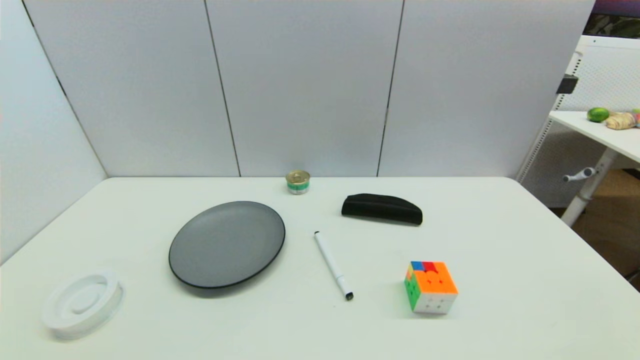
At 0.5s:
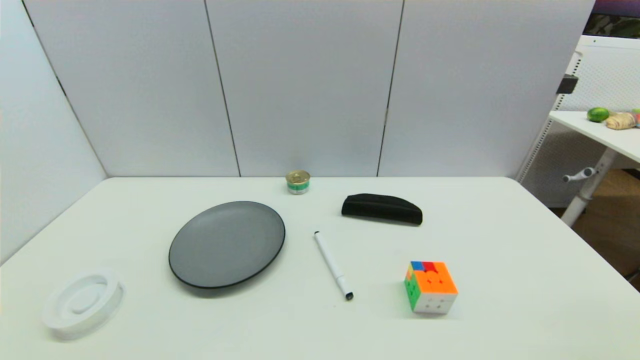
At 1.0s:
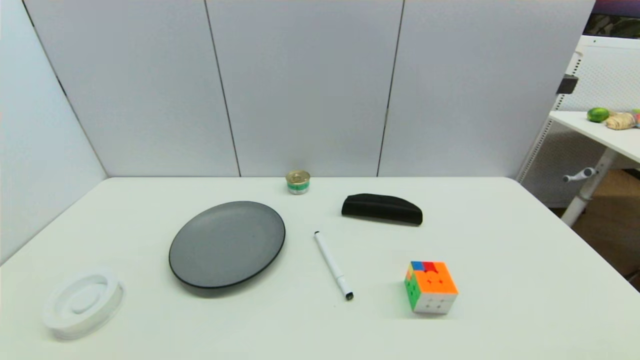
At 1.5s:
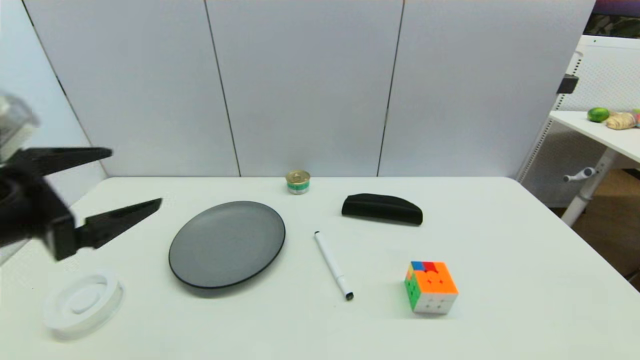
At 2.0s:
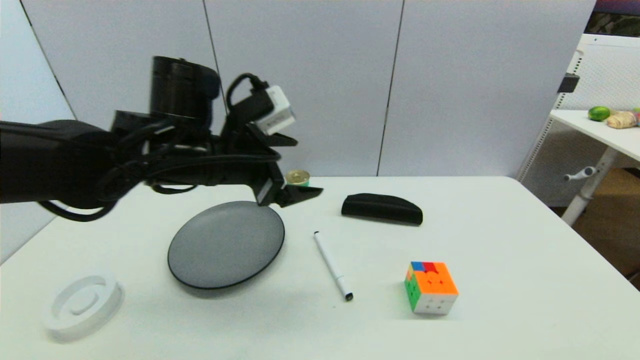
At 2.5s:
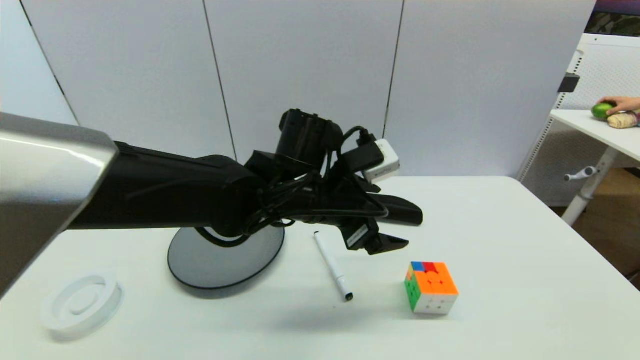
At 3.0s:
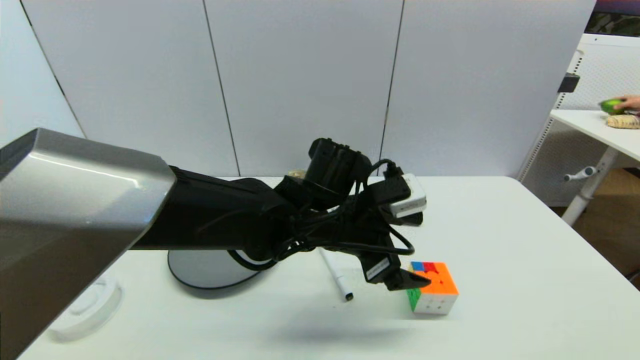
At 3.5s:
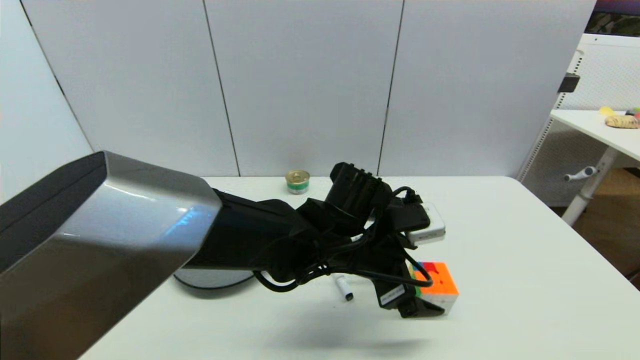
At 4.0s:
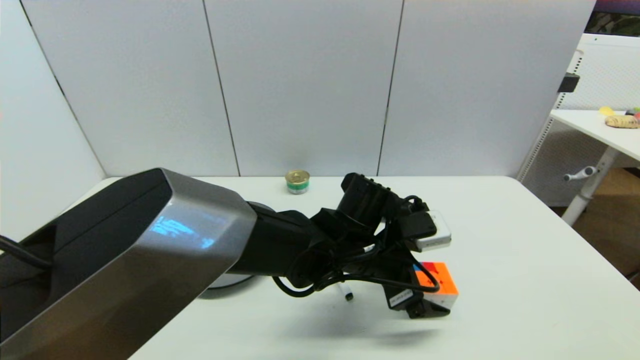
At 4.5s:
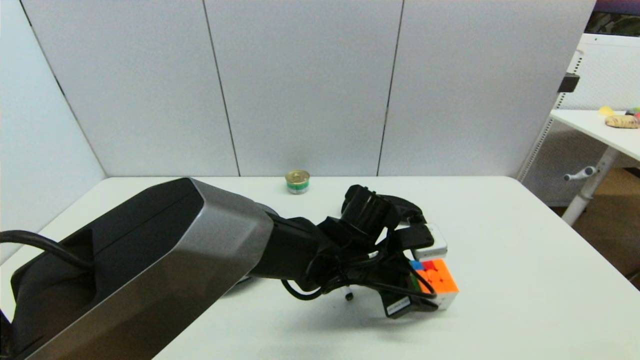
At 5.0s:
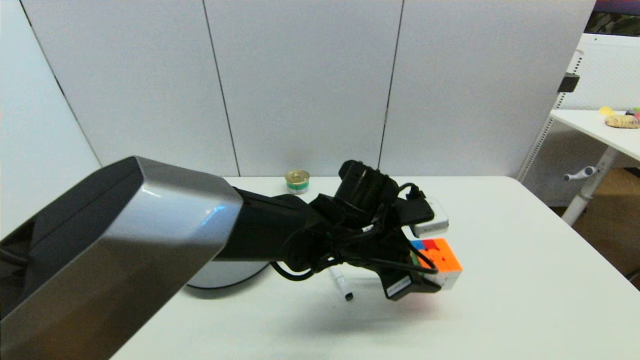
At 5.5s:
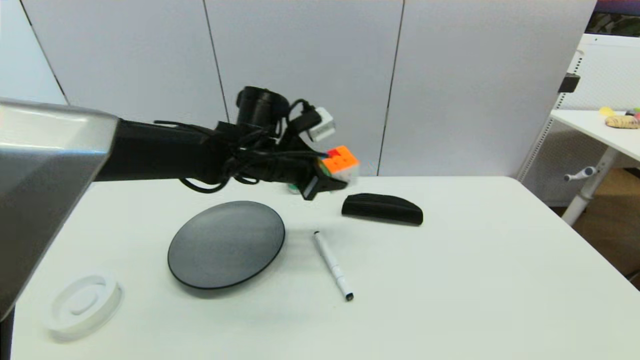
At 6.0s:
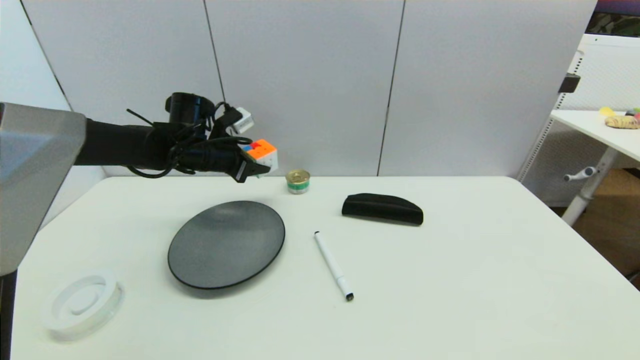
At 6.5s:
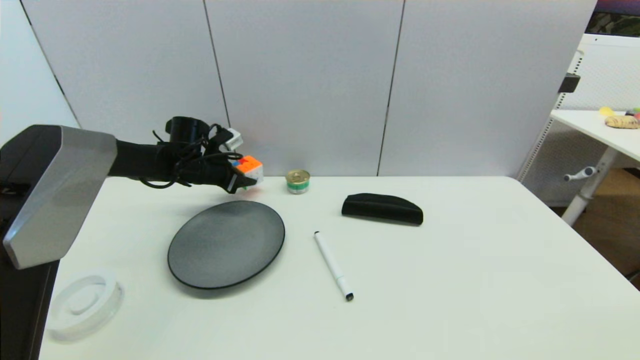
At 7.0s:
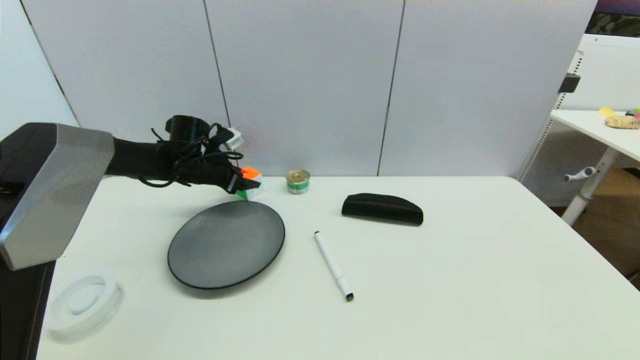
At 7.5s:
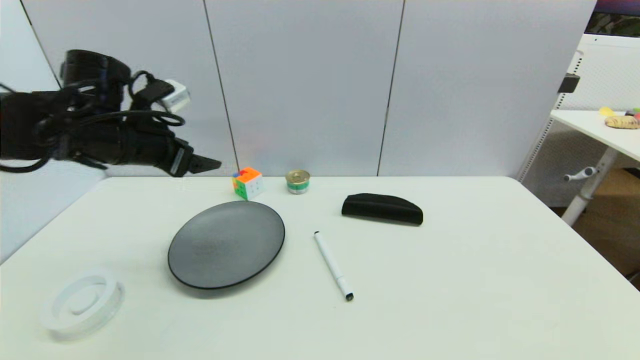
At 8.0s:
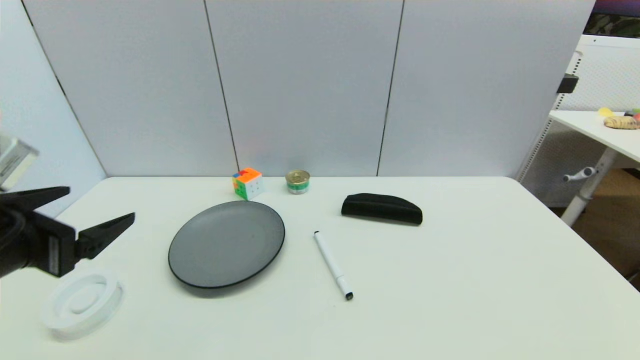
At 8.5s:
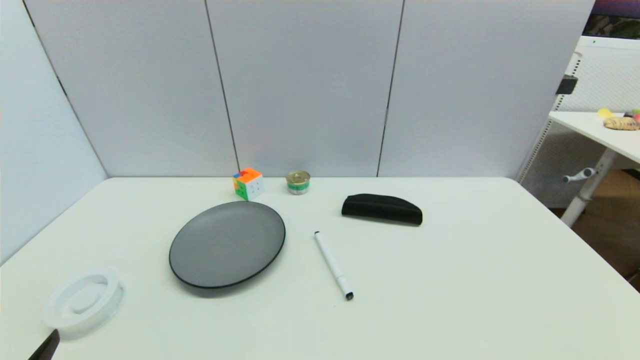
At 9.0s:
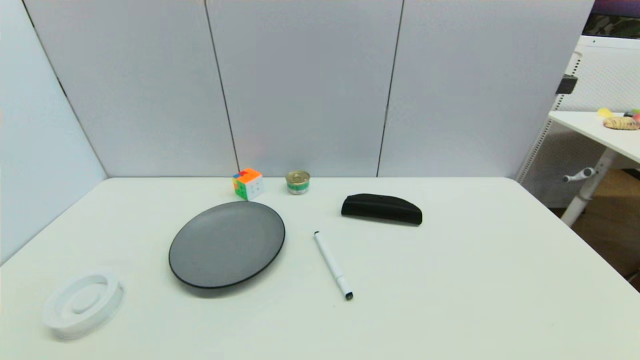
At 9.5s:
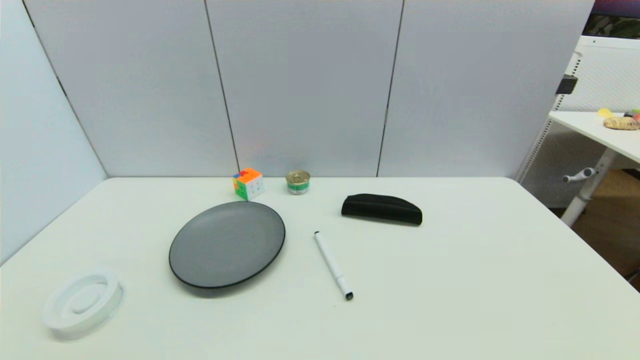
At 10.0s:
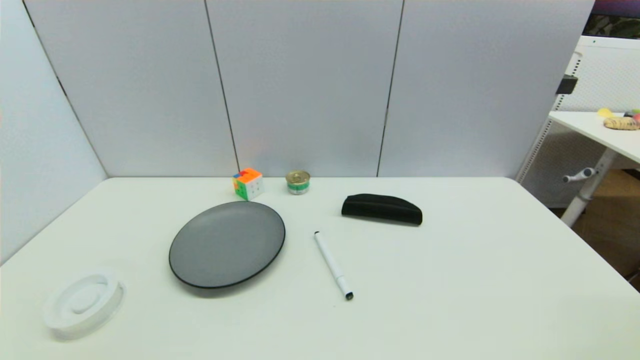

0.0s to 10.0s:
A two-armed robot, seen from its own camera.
Step, 1.5s to 4.5s: Grasp the magic cube with left gripper.
Step, 5.0s to 7.0s: Place the magic cube on the table with left gripper.
0.0s to 2.0s: The left gripper is displaced forward, upward and to the right by approximately 40 cm.
2.0s to 4.0s: The left gripper is displaced to the right and downward by roughly 25 cm.
4.0s to 6.0s: The left gripper shifts some 30 cm to the left and forward, and closes its fingers.
6.0s to 8.0s: The left gripper goes some 30 cm backward, and opens.
8.0s to 10.0s: The left gripper is displaced backward and downward by about 20 cm.

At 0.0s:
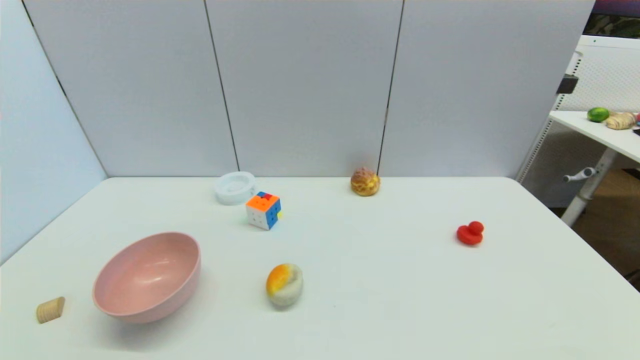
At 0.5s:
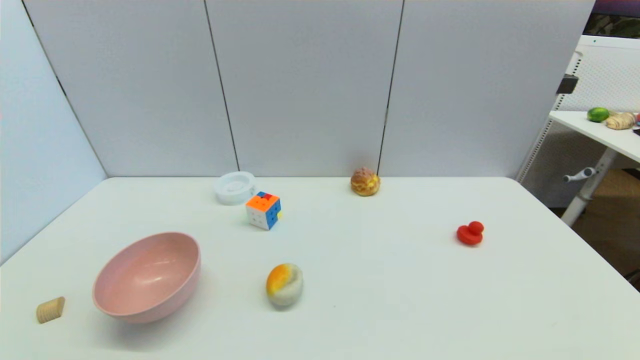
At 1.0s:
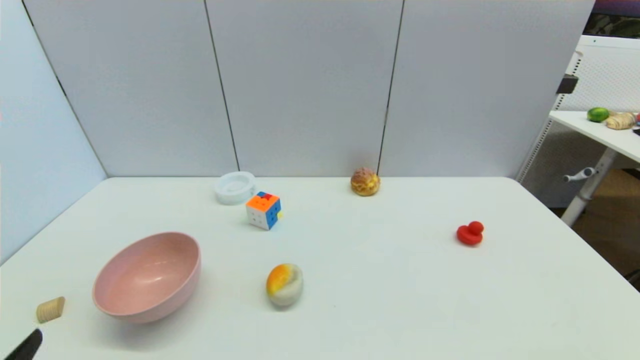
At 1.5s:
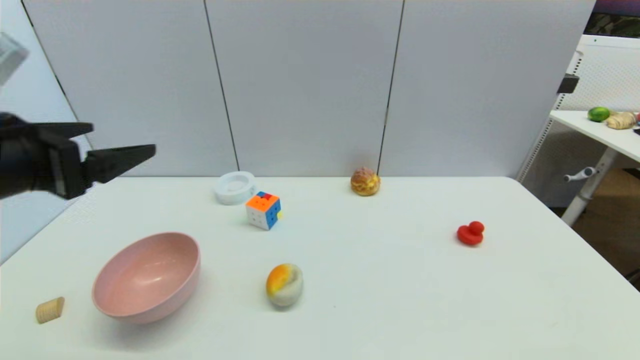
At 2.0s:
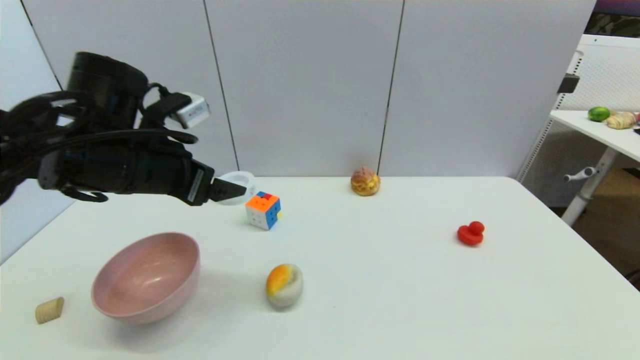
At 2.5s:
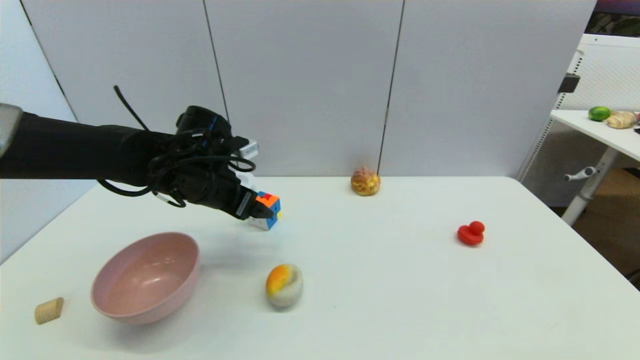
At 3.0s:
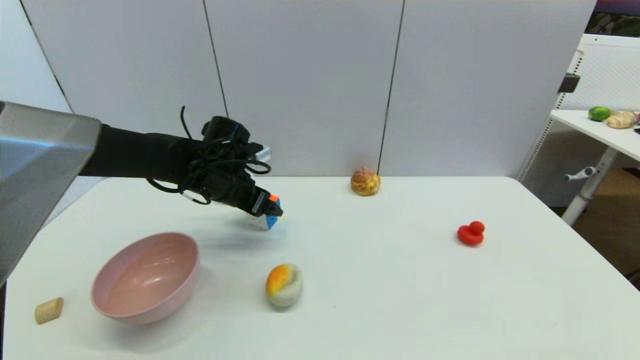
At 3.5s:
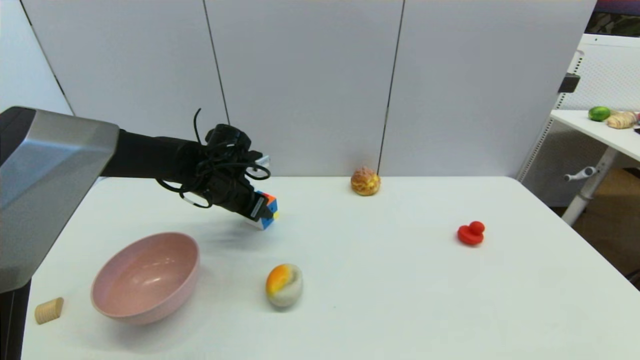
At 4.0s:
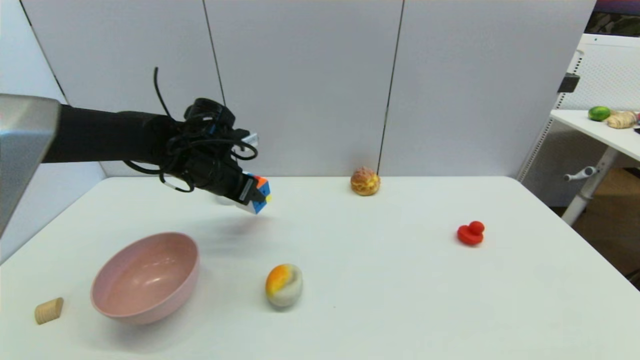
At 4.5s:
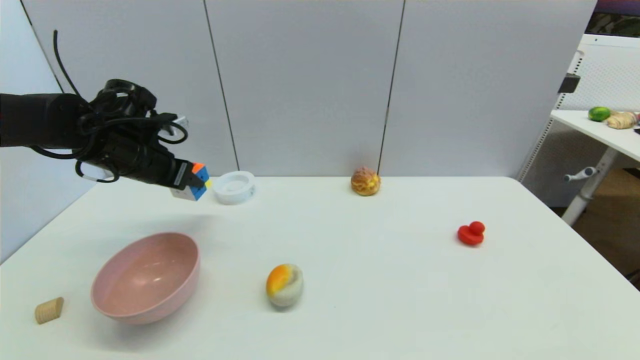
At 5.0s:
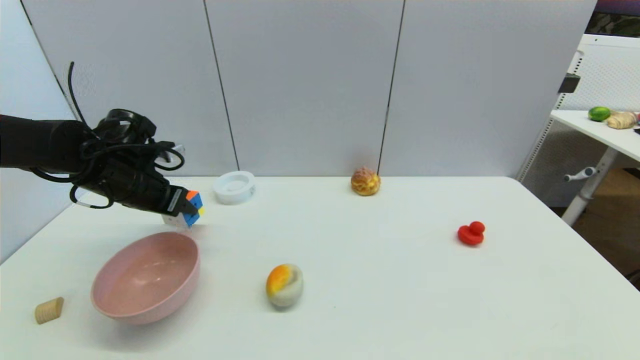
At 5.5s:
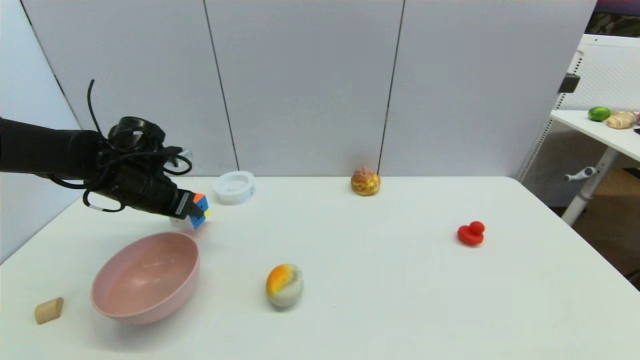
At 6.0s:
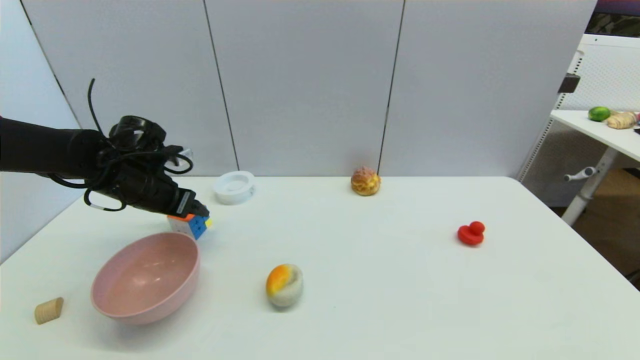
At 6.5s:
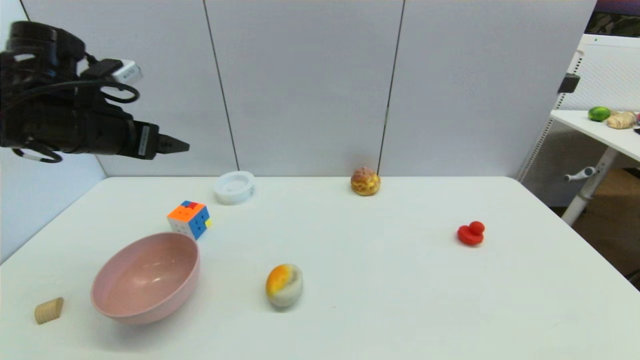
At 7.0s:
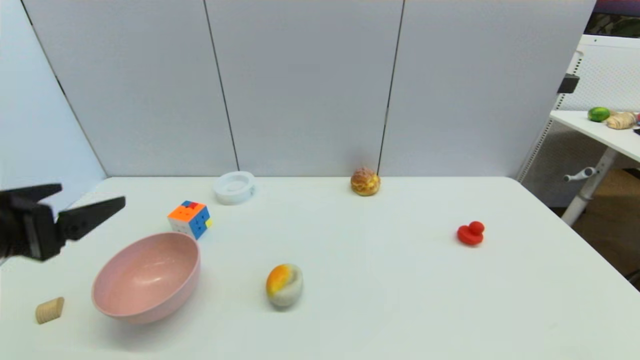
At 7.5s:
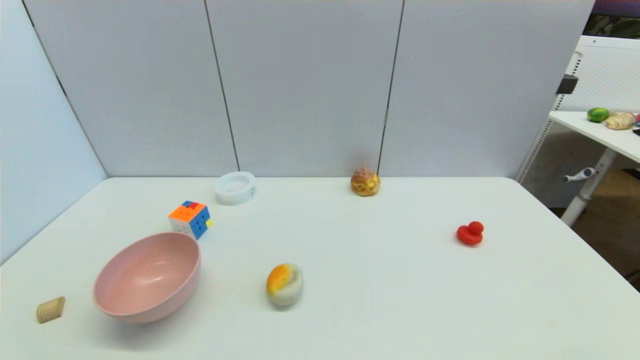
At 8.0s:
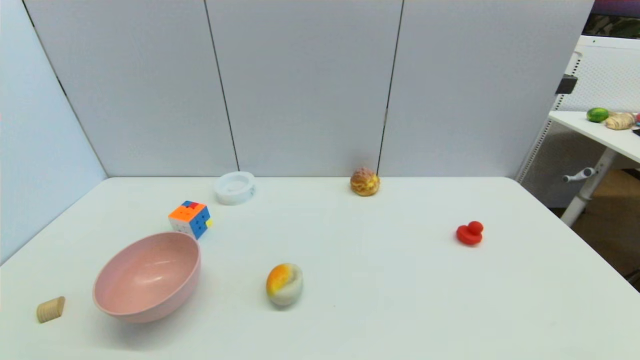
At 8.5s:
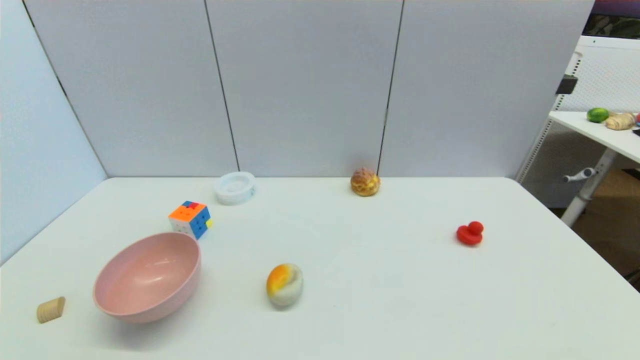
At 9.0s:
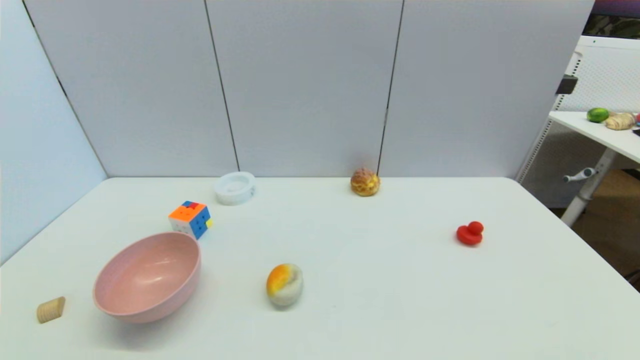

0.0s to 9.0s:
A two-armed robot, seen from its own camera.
Step, 1.0s to 3.0s: Grasp the magic cube with left gripper.
Step, 4.0s to 6.0s: Place the magic cube on the table with left gripper.
0.0s to 2.0s: The left gripper travels forward and upward by about 35 cm.
2.0s to 4.5s: The left gripper travels forward and to the left by roughly 10 cm, and closes.
4.5s to 7.0s: The left gripper travels backward by roughly 25 cm, and opens.
7.0s to 9.0s: The left gripper is displaced downward and backward by about 25 cm.
